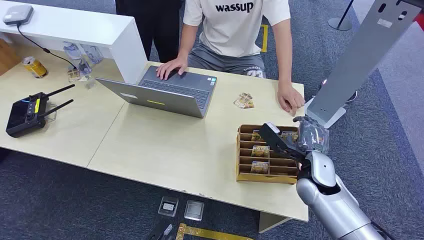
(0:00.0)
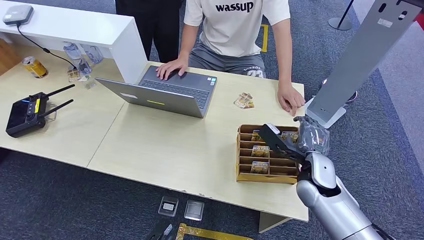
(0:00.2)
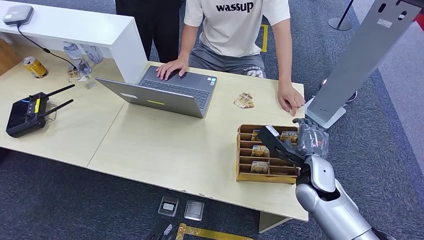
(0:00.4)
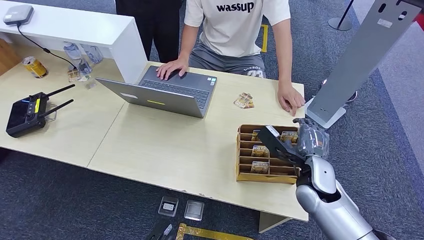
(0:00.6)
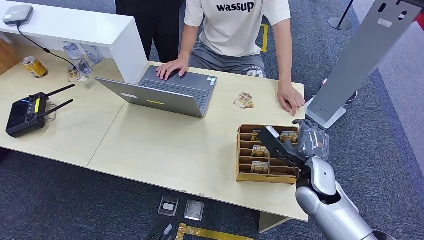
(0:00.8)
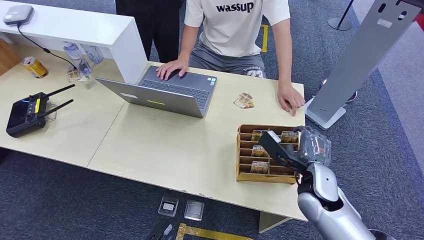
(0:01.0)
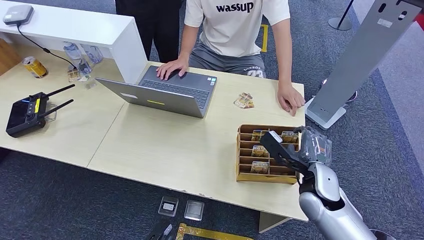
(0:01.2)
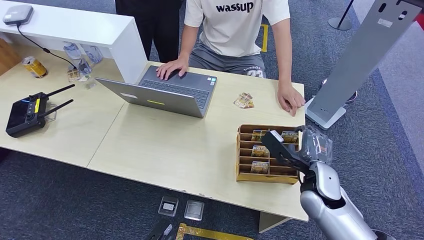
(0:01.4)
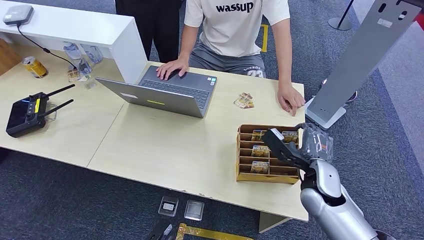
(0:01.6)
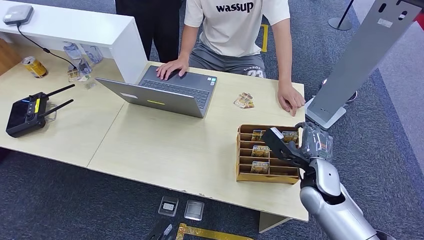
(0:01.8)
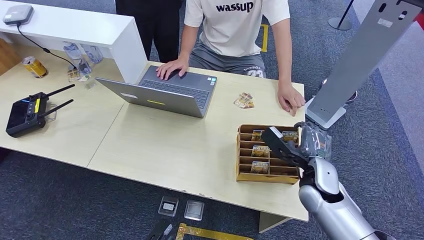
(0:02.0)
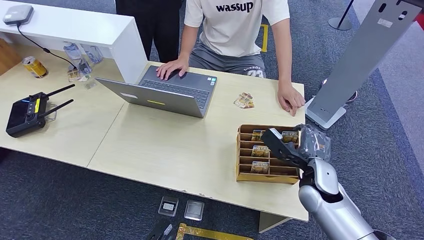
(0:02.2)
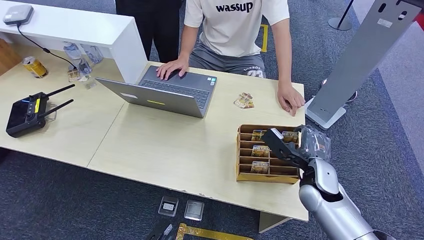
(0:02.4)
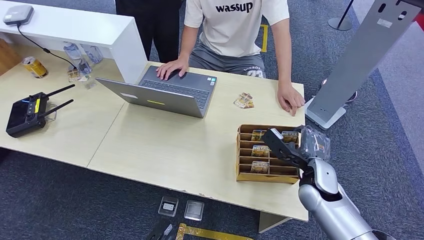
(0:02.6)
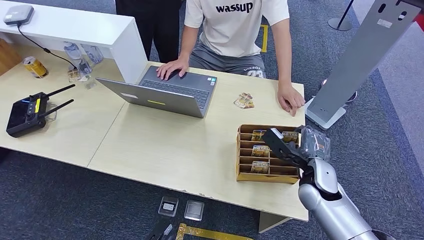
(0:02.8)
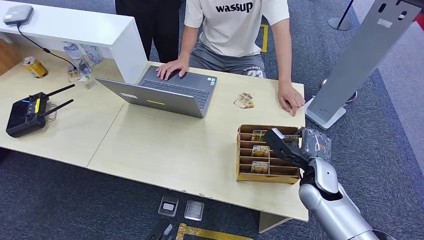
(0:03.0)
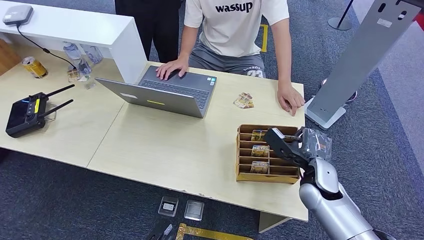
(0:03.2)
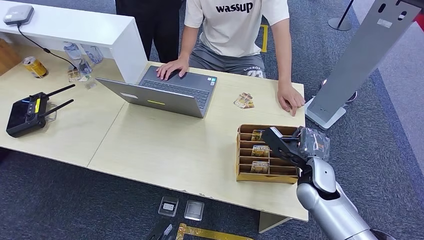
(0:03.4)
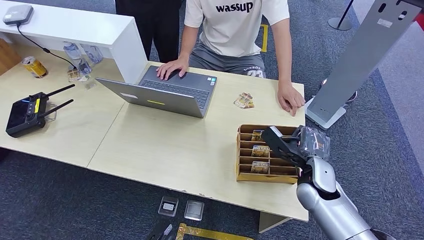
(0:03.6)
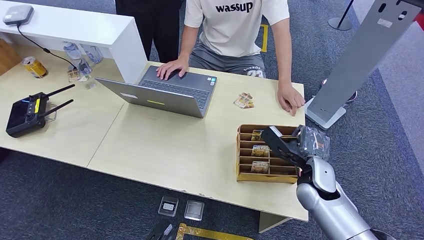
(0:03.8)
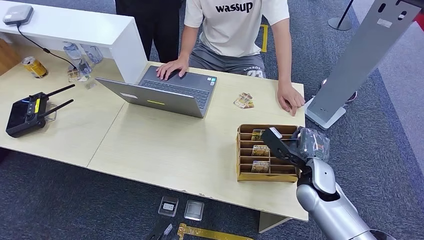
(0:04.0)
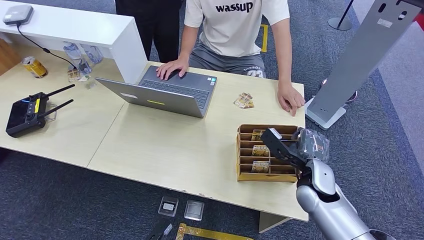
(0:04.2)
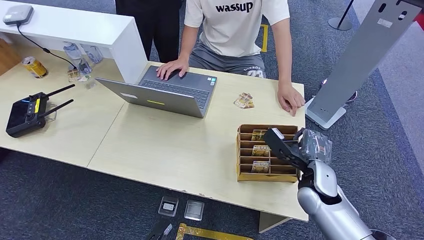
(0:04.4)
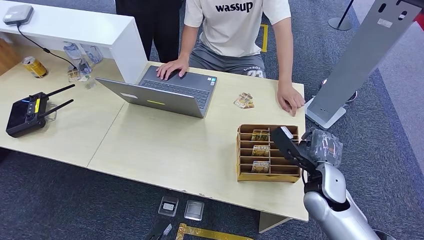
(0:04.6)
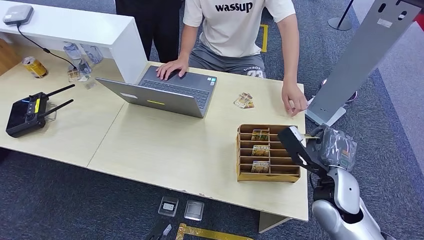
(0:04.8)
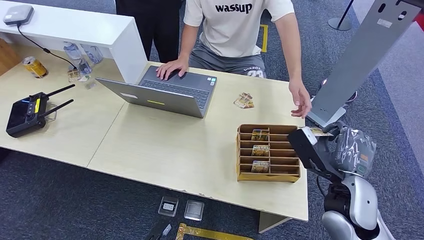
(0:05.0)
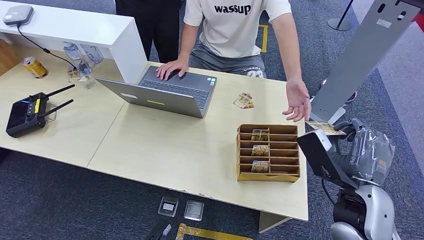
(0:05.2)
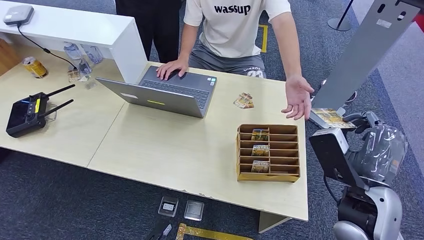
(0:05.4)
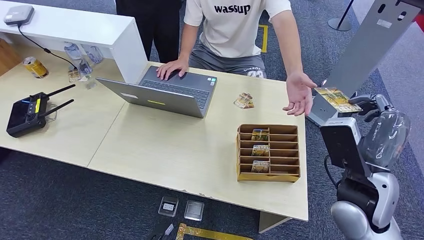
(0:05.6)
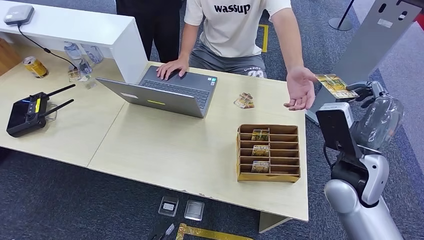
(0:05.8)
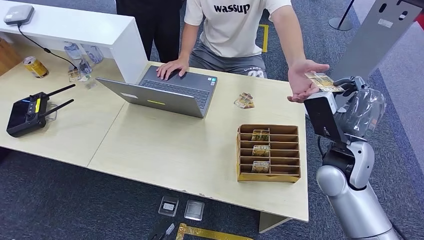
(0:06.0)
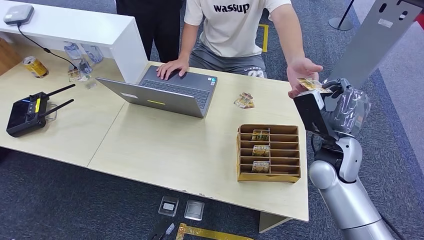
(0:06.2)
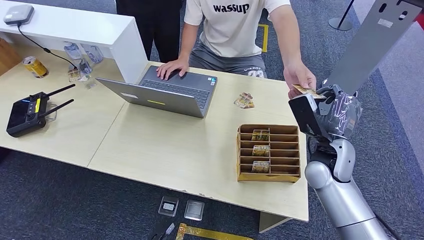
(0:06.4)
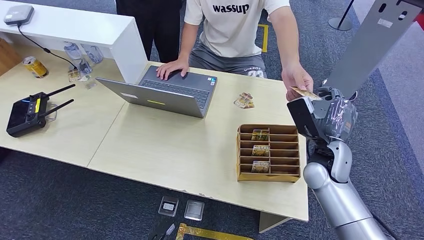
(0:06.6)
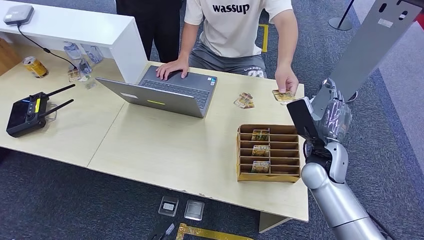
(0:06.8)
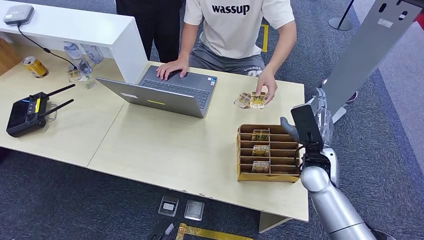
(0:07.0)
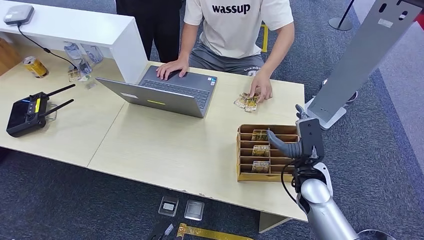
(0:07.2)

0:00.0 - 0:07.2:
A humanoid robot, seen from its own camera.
Step, 0:00.0 - 0:05.2: Pick up the key card from the card box.
Step, 0:06.2 - 0:07.2: Hand the key card to the target.
0:01.4 - 0:02.8: The two hands keep their place.
0:02.8 - 0:04.4: Both hands stay put.
0:04.4 - 0:05.8: The right hand is displaced upward by roughly 10 cm.
0:05.8 - 0:07.2: The right hand is displaced downward by approximately 10 cm.

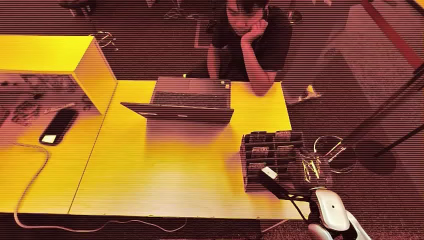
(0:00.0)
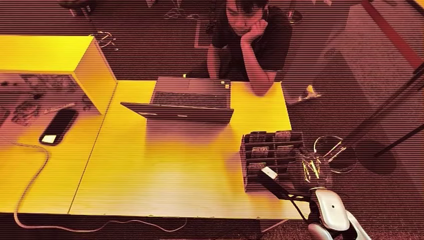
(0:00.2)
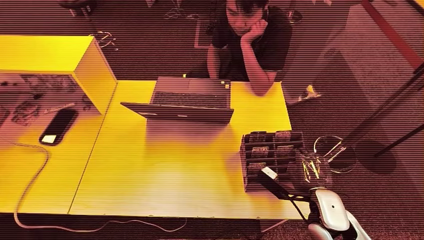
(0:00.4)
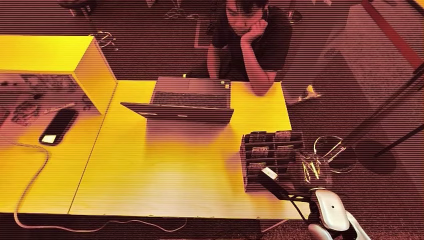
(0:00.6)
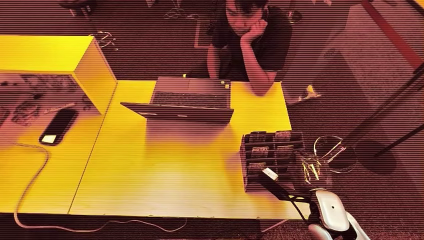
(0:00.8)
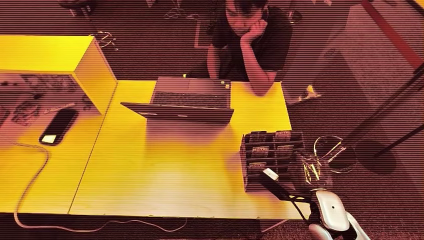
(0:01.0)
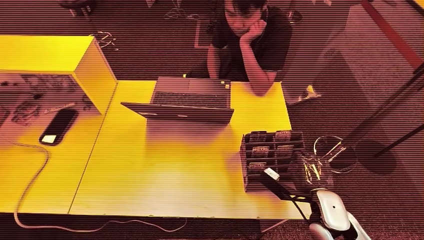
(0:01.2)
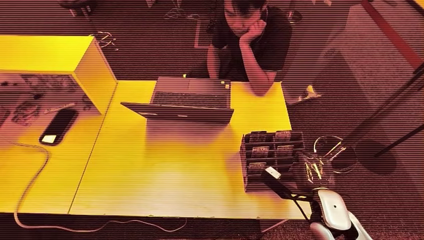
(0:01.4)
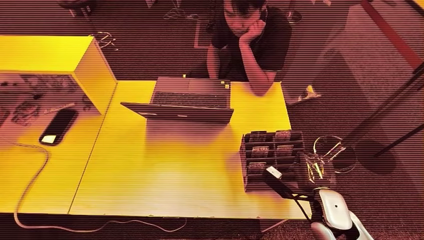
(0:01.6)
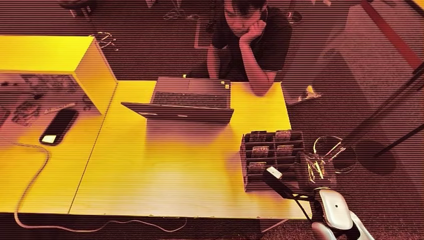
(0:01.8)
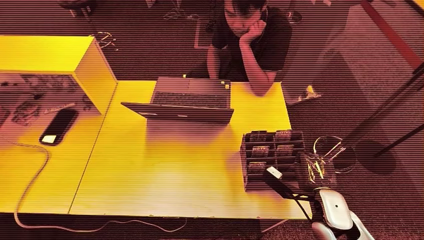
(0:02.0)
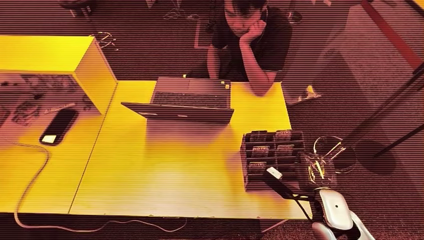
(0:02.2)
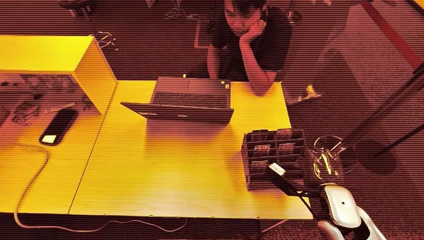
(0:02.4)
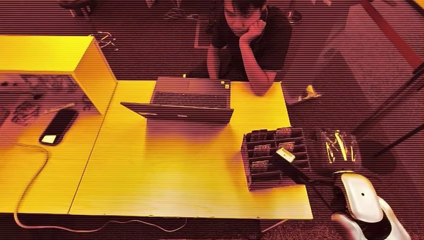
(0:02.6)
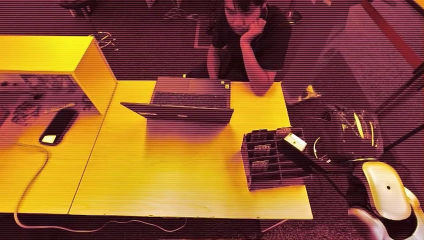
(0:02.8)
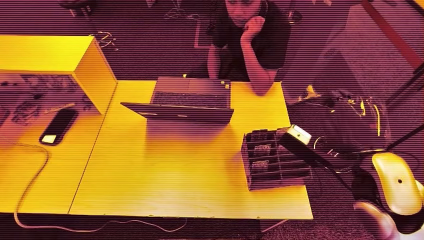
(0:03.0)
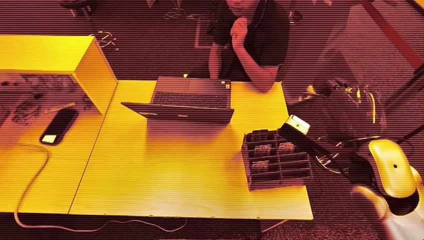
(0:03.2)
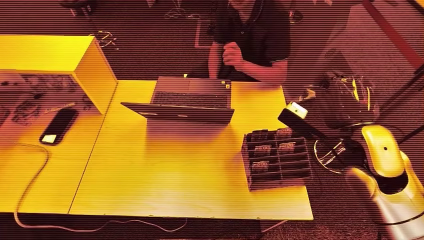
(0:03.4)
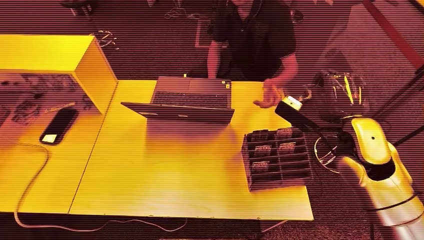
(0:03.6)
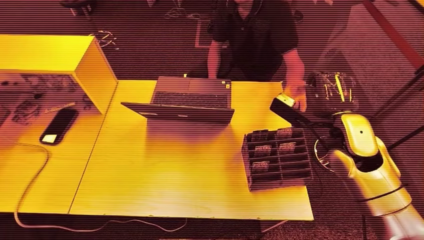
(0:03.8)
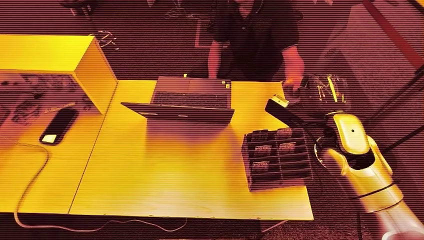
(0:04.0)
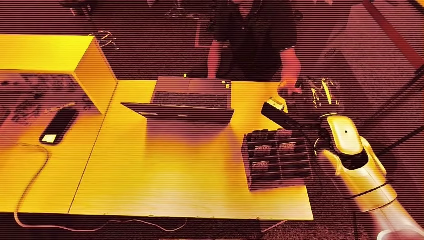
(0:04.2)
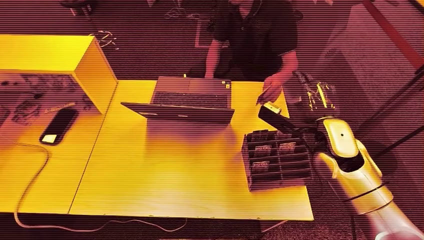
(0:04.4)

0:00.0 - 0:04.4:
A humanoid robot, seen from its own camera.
Step, 0:00.0 - 0:02.6: Pick up the key card from the card box.
Step, 0:02.8 - 0:04.4: Hand the key card to the target.
0:01.4 - 0:03.0: The right hand moves upward, some 20 cm.
0:03.0 - 0:04.4: The right hand goes approximately 15 cm forward and downward.
